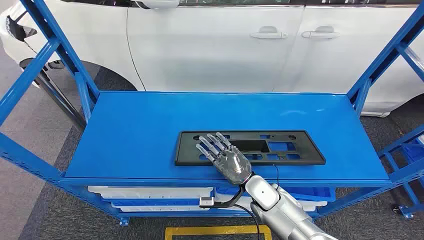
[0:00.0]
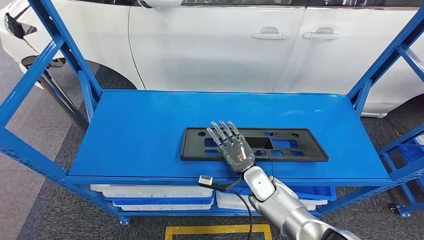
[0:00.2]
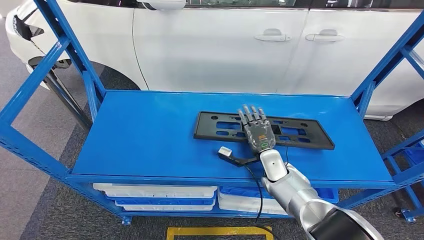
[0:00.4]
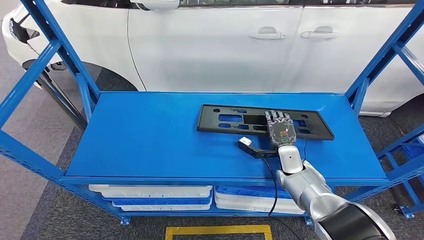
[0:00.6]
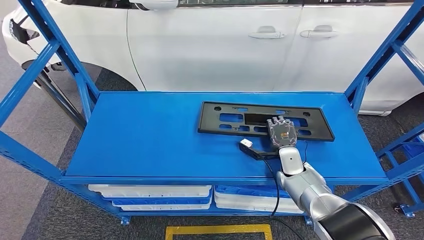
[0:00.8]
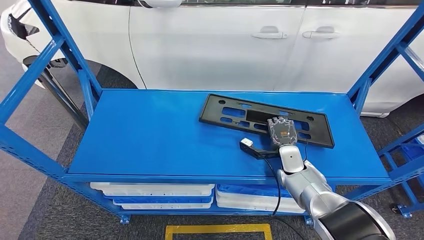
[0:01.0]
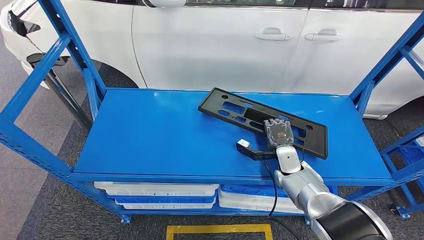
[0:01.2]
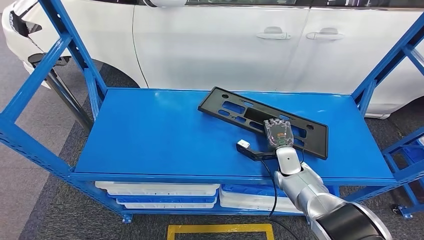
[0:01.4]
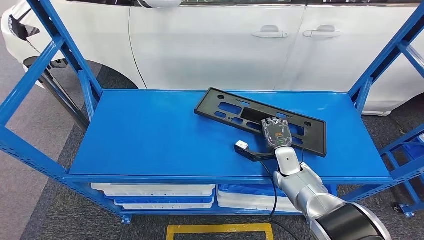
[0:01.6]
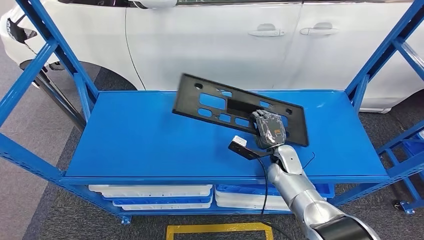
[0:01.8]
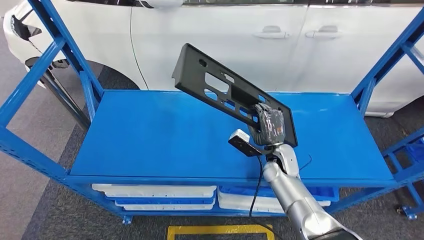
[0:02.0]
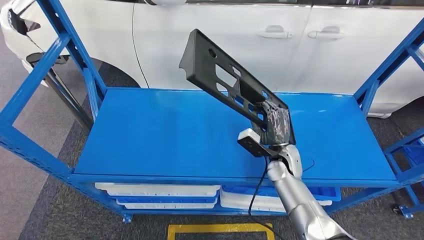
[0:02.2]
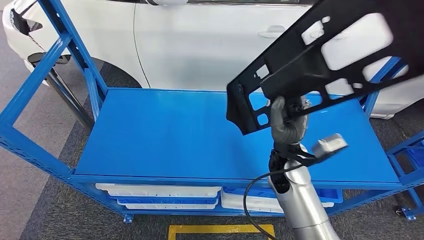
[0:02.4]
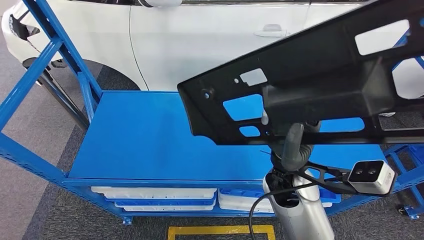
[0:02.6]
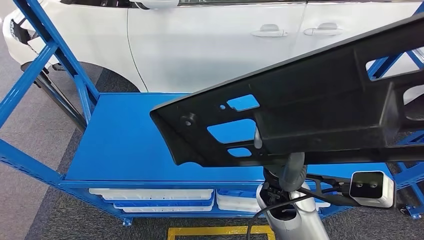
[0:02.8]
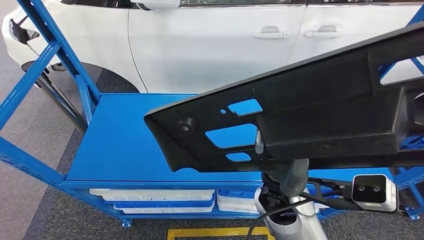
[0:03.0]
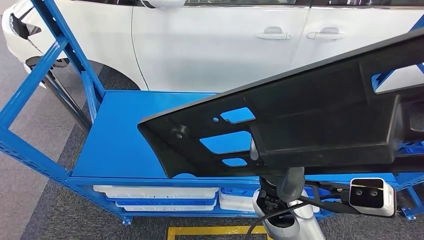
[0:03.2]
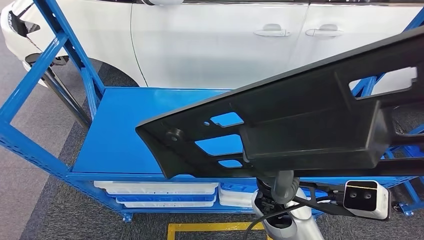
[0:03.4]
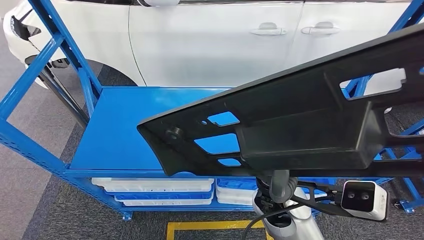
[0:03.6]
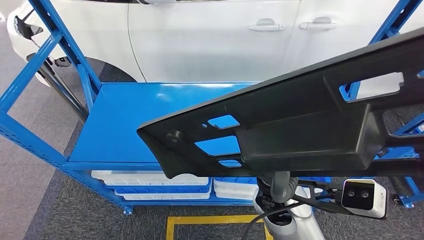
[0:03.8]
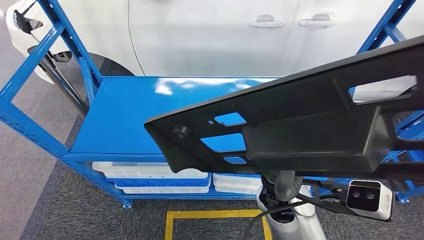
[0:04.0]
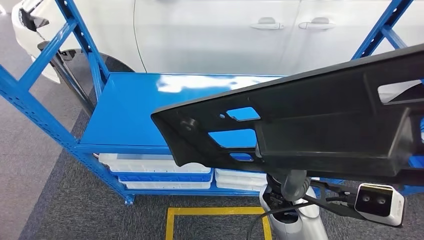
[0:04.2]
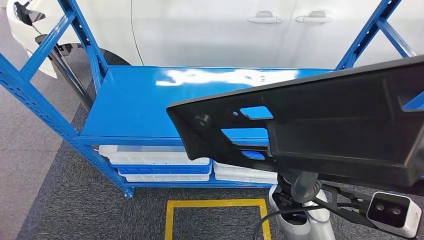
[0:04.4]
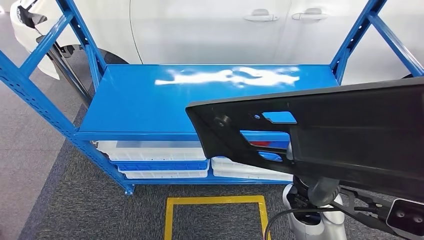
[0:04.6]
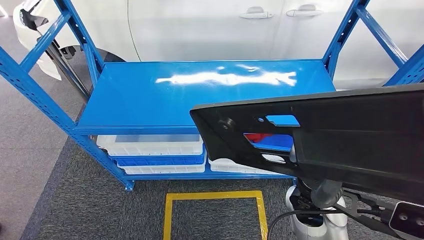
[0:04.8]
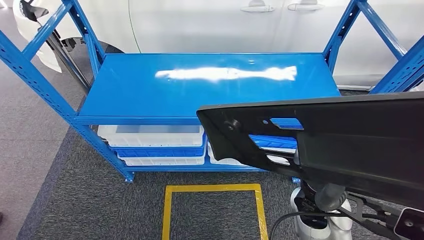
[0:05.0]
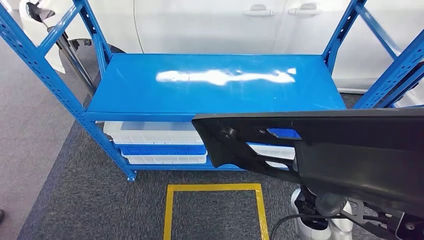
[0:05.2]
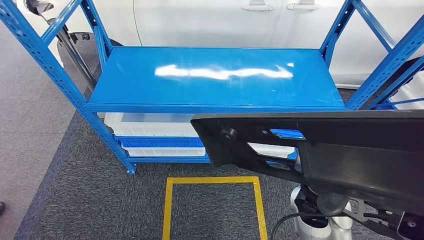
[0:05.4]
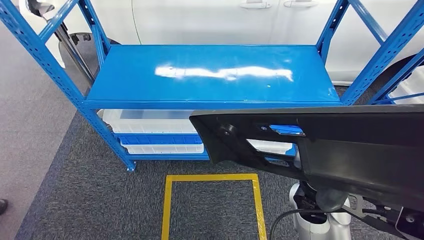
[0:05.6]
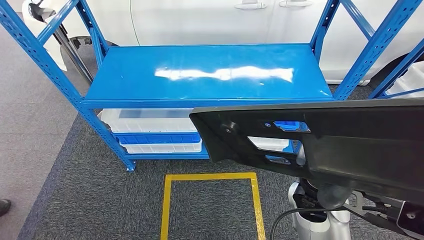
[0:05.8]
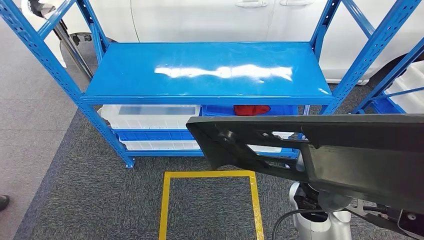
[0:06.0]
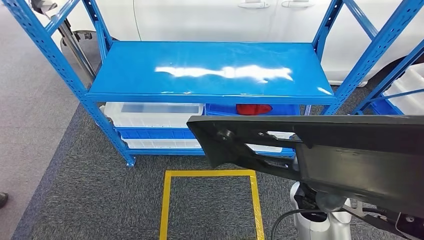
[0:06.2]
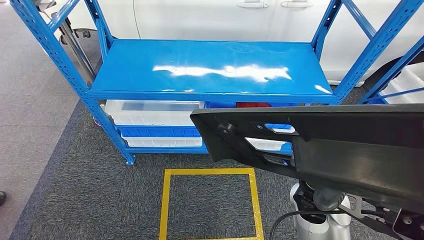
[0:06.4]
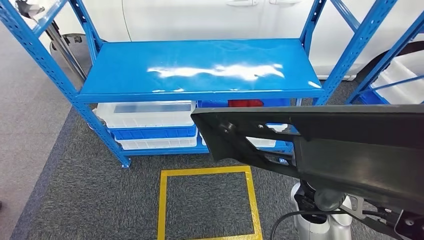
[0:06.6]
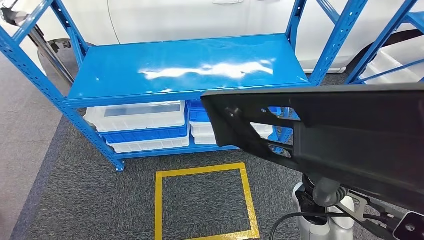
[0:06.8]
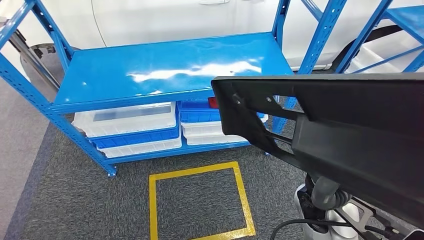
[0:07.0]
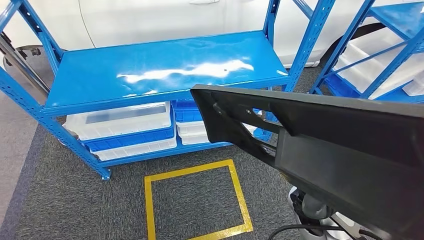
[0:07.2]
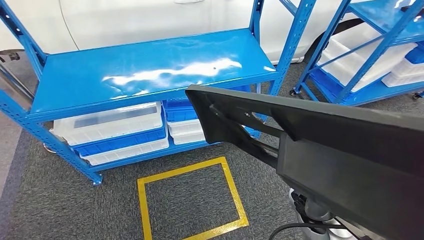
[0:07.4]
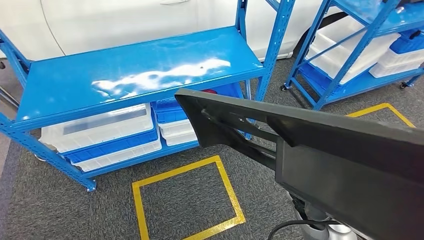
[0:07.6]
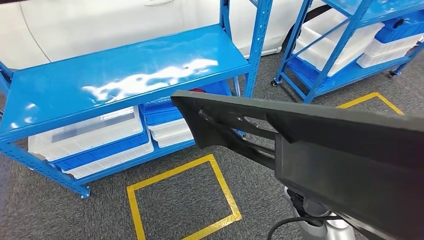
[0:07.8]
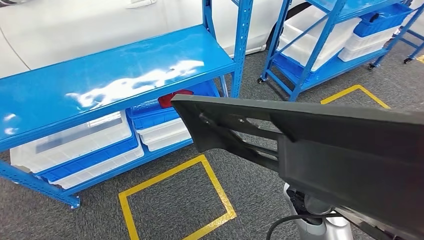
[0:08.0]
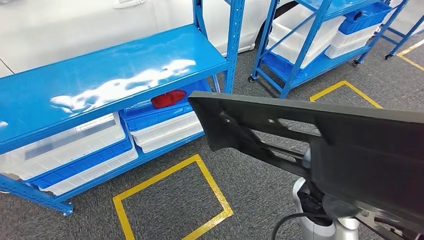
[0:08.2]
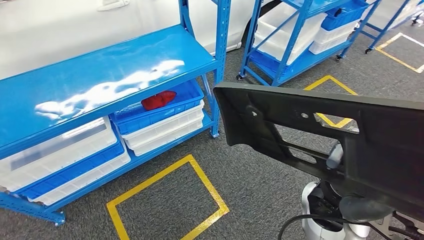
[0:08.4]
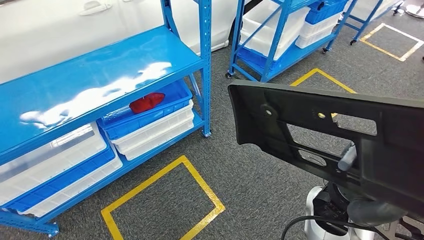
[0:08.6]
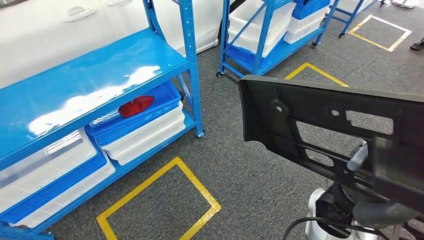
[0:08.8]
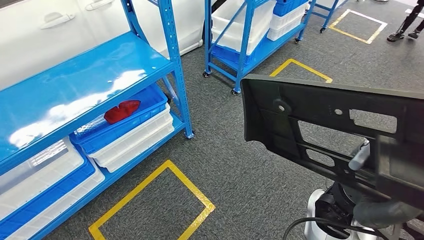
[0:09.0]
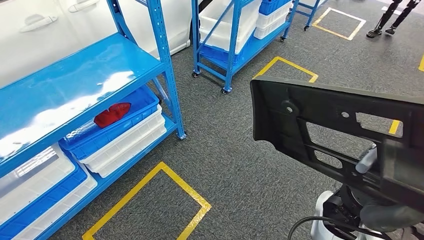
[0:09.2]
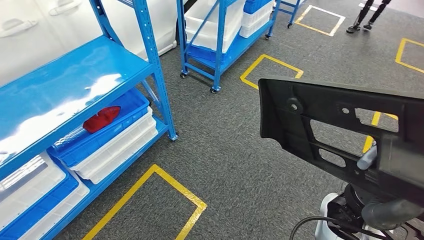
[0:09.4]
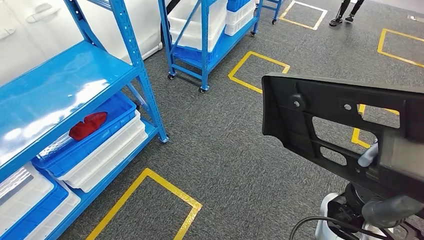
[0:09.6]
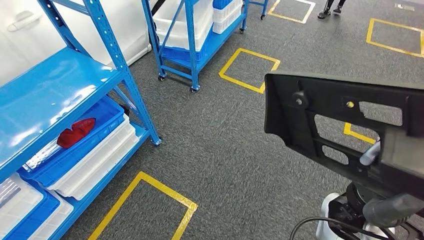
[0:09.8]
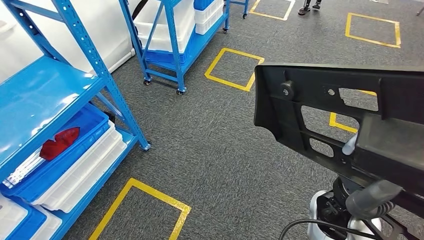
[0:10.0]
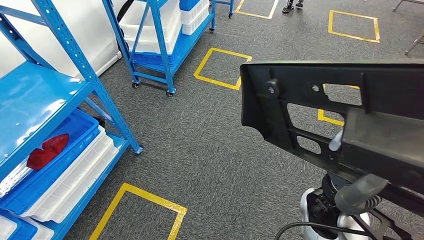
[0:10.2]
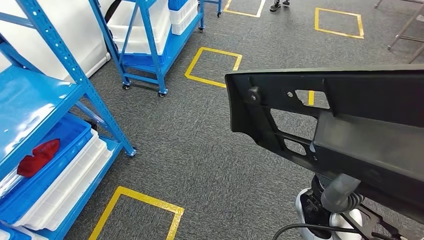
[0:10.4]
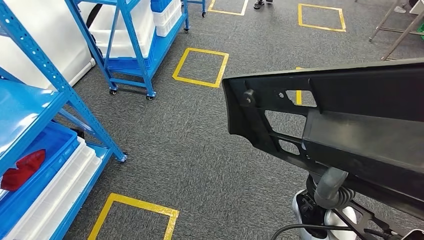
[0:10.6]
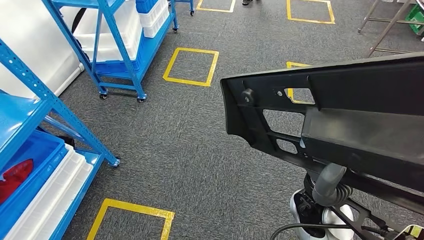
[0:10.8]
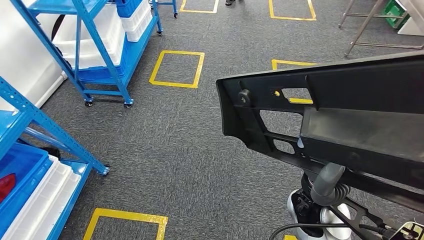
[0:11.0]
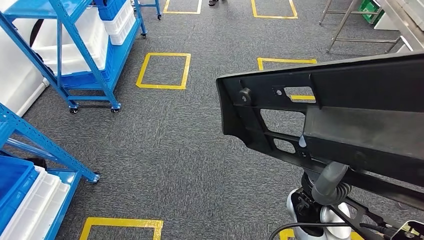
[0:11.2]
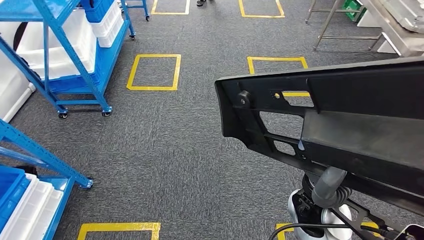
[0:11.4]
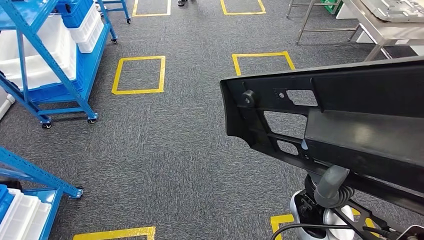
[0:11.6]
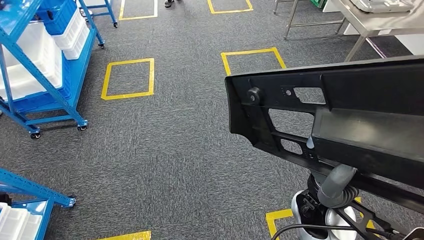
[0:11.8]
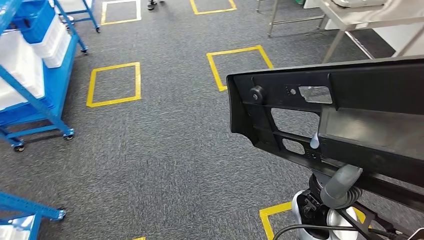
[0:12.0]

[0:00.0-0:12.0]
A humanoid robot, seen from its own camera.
Step, 0:00.0 to 0:03.2: Pick up the large material from the shelf.

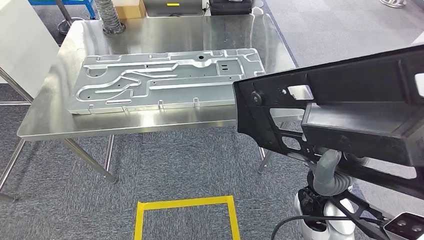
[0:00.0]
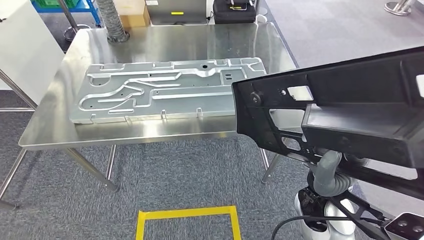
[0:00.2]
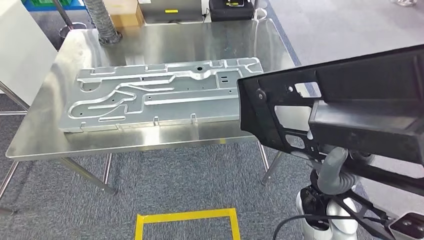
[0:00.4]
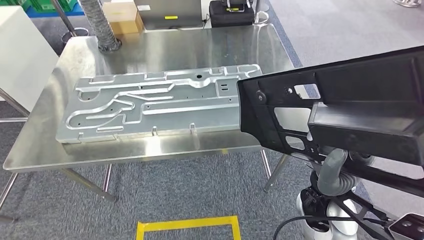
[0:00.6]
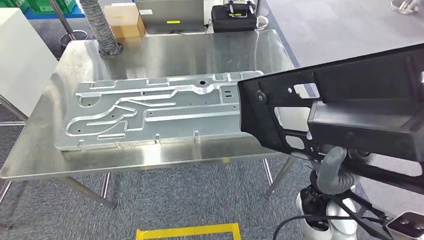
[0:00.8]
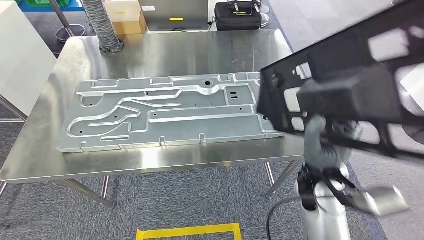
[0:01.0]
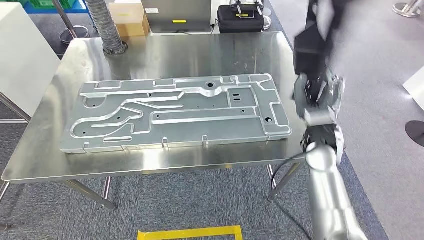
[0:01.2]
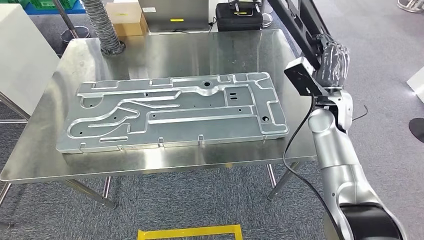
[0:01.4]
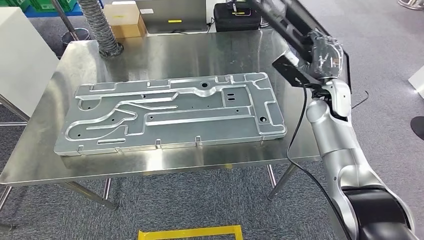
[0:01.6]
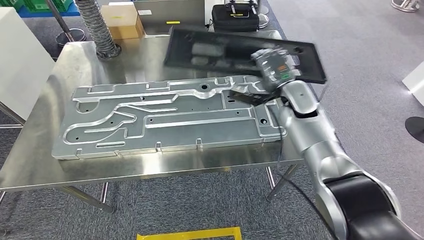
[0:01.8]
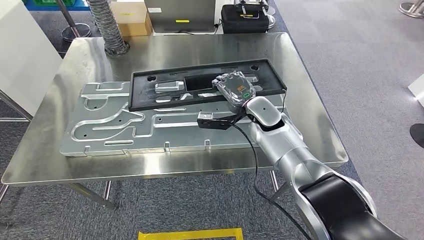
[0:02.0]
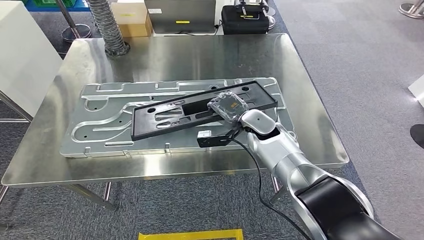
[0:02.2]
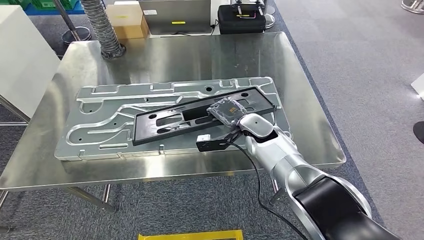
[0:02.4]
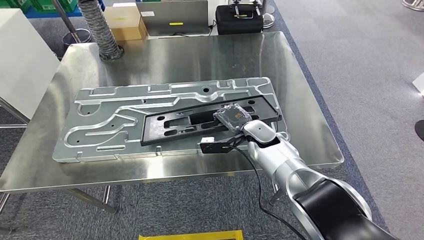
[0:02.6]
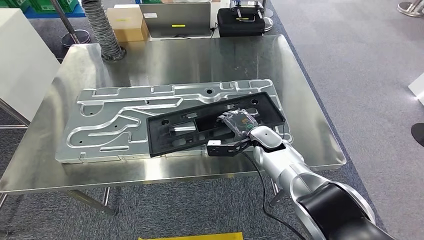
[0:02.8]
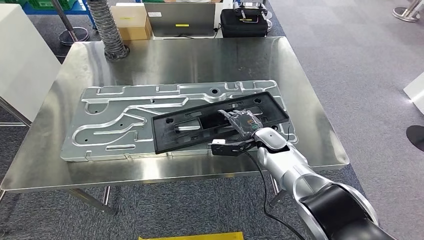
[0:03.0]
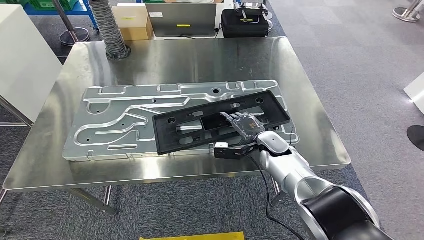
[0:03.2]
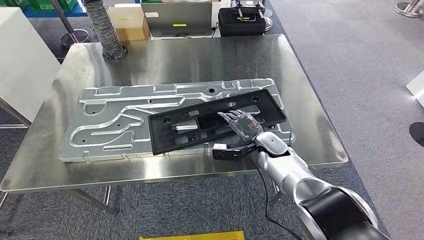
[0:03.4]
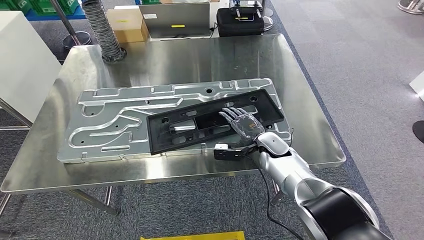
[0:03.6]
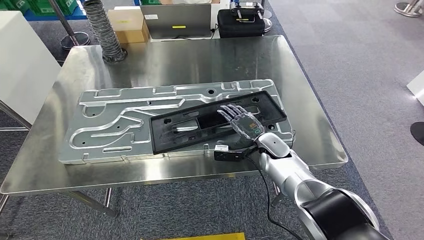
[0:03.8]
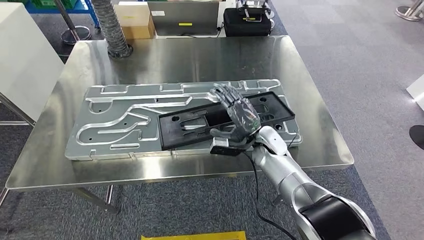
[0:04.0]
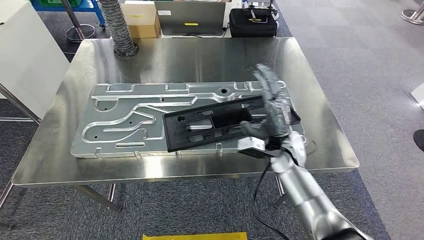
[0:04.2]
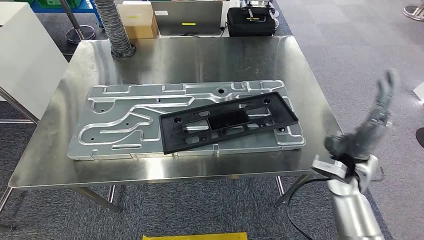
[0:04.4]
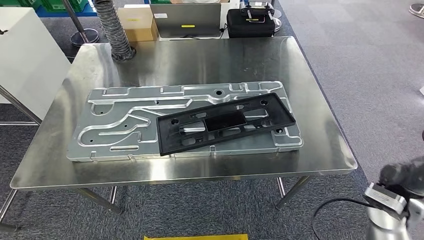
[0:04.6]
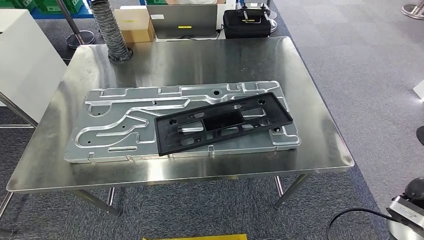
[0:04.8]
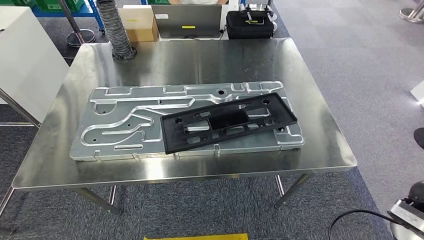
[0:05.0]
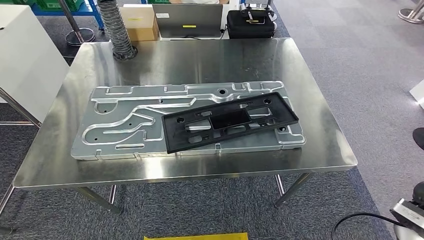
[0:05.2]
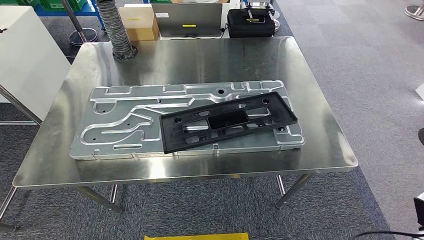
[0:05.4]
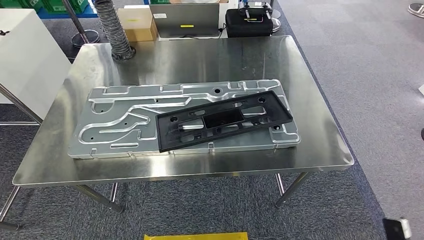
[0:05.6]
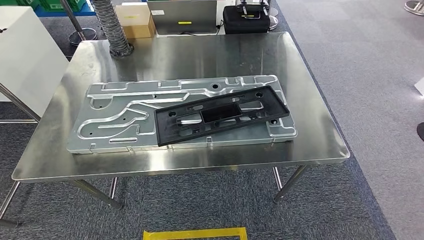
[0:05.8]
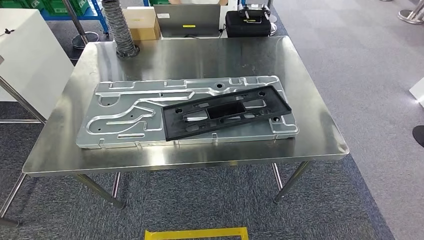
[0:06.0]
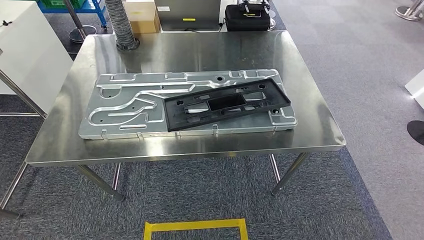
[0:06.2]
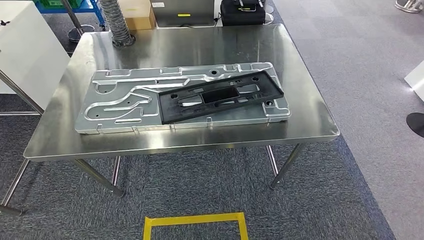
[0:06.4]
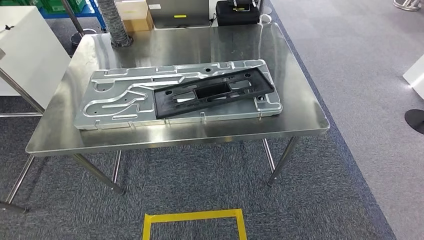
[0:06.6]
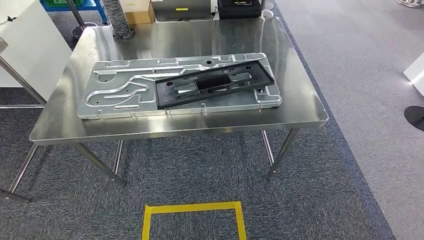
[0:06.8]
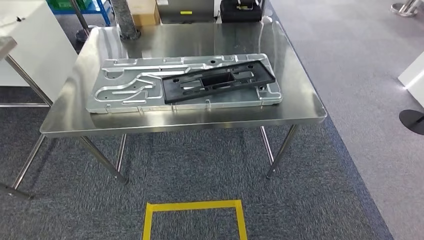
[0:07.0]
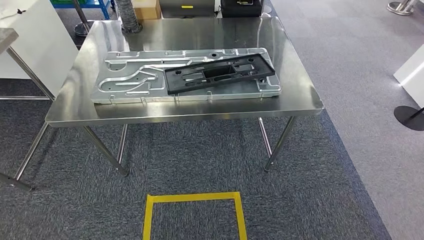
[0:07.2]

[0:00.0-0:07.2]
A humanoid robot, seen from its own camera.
Step, 0:01.2 to 0:03.6: Insert the large material into the corresponding slot on the workbench.
